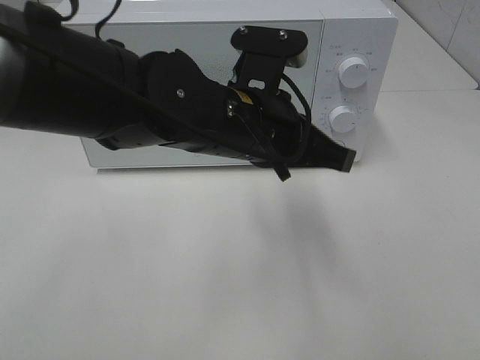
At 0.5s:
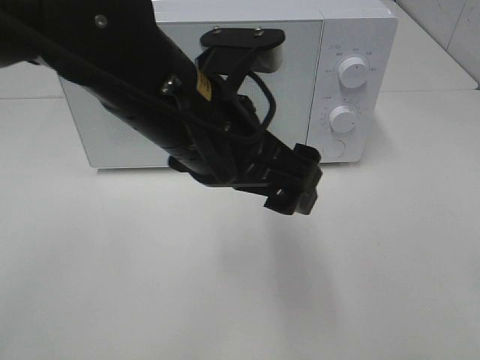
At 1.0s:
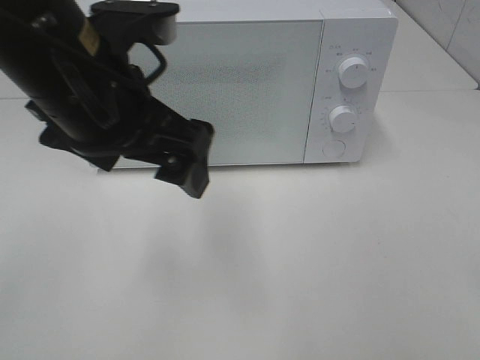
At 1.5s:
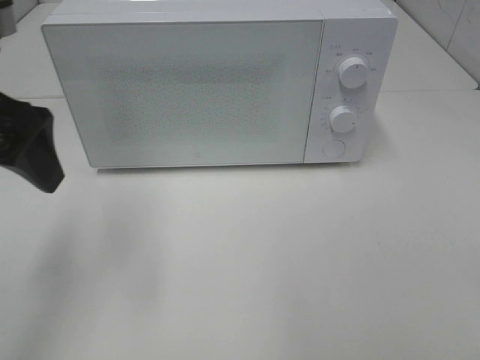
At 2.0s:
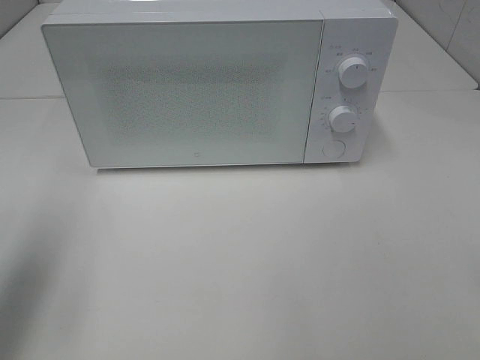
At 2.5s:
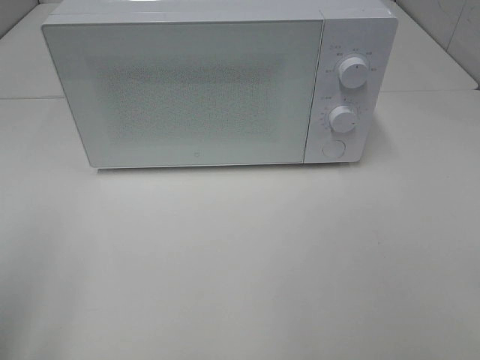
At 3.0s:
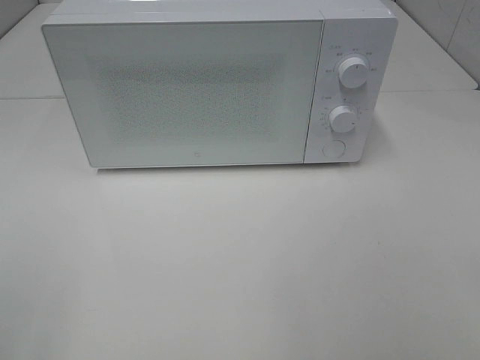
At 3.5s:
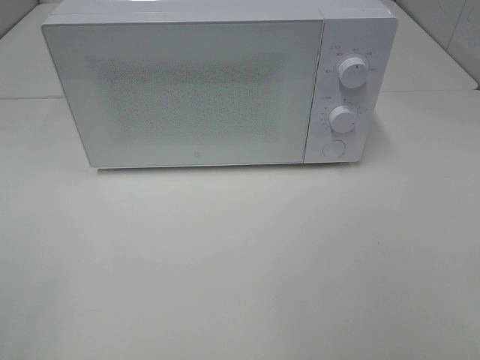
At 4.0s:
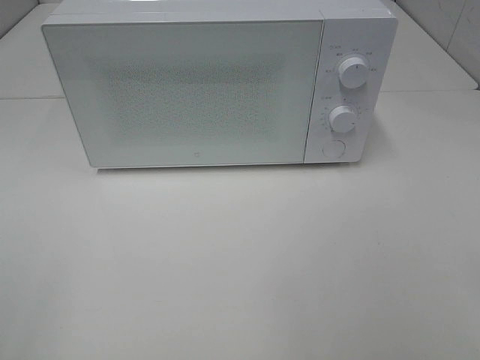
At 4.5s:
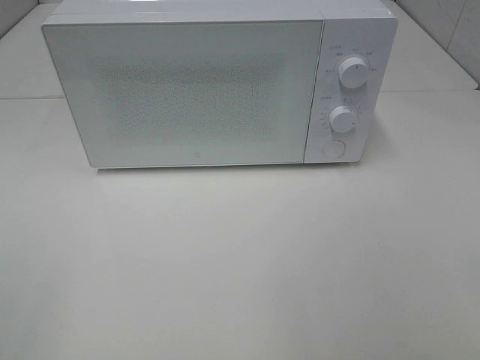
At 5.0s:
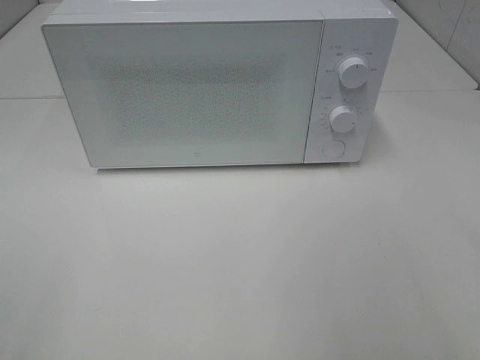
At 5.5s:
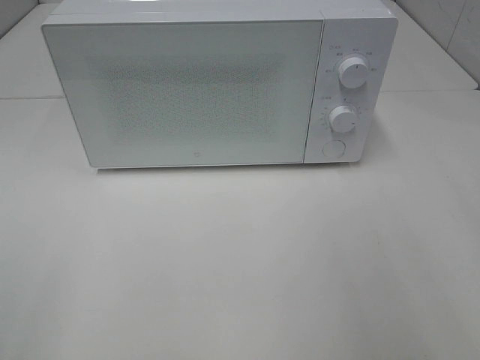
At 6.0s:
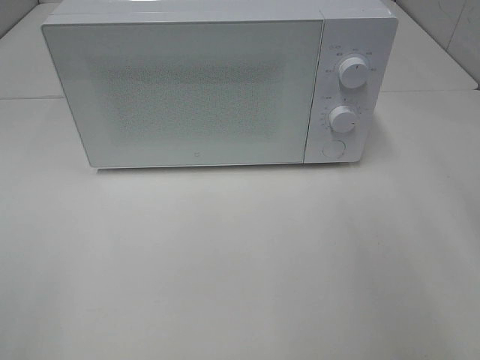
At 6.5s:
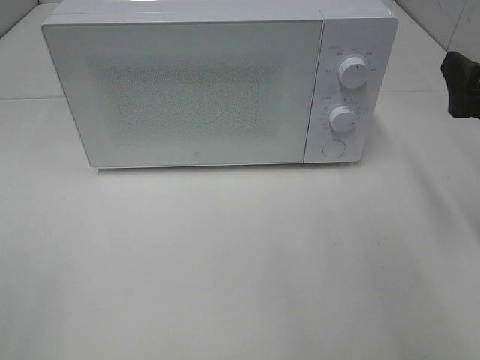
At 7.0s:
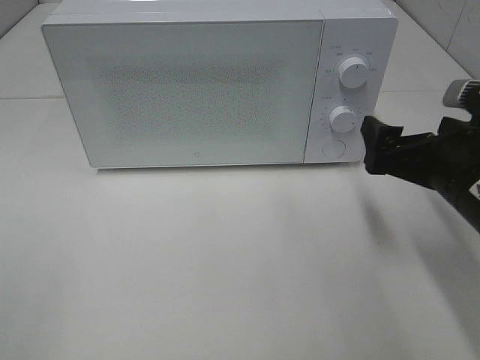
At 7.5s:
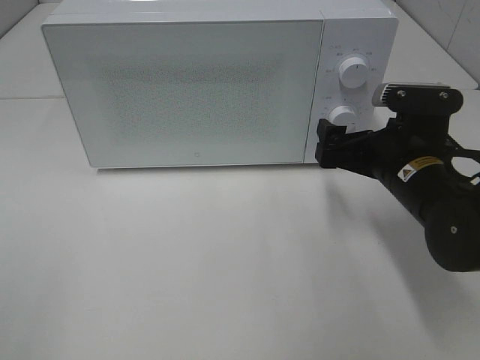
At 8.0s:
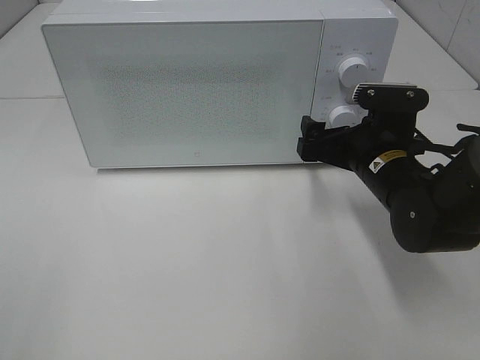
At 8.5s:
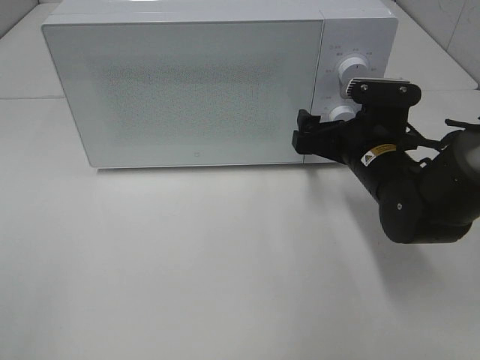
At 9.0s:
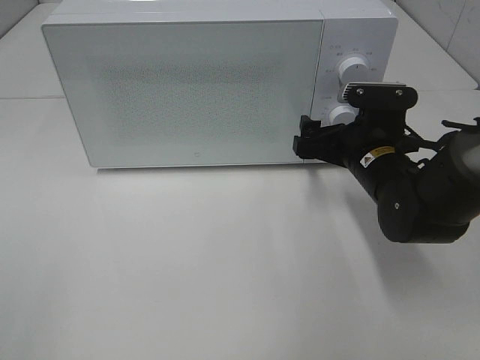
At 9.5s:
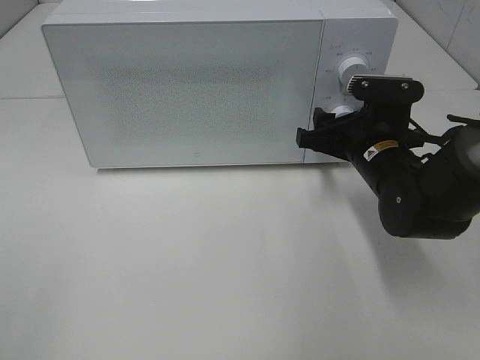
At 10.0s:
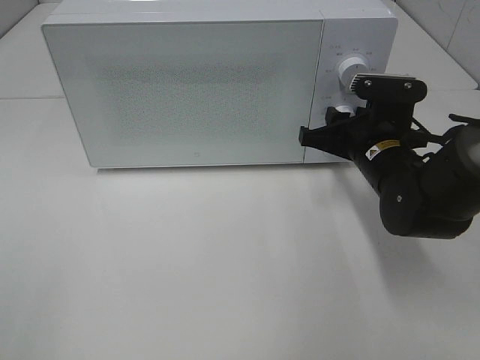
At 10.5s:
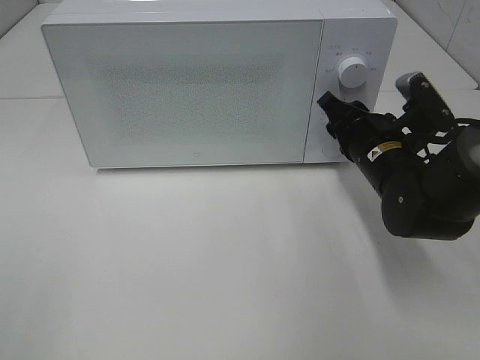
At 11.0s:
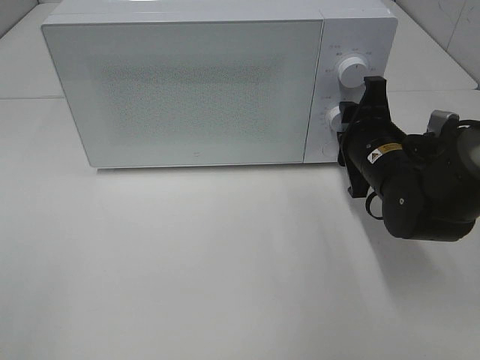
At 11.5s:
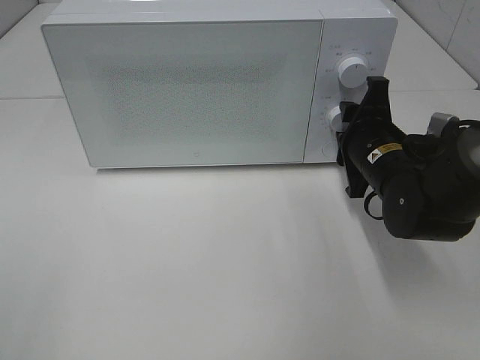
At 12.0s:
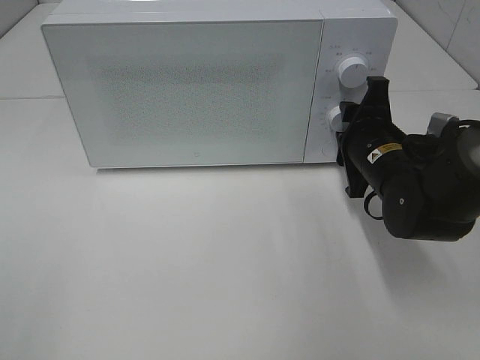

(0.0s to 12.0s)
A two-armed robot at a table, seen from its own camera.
Task of the whole recording: Heat the burger.
0.0s - 2.0s: The left gripper is displaced to the left by roughly 30 cm, and opens up.
2.0s - 4.0s: The left gripper travels backward by about 20 cm.
6.0s - 8.0s: The right gripper goes some 25 cm downward, to the left and forward.
8.0s - 10.0s: The right gripper closes.

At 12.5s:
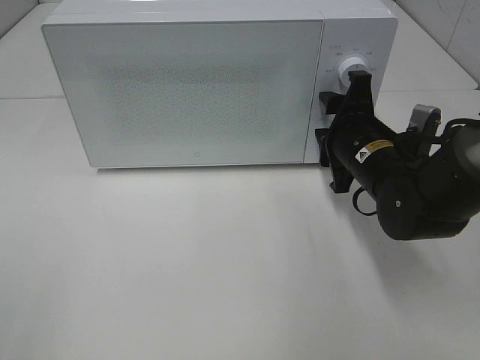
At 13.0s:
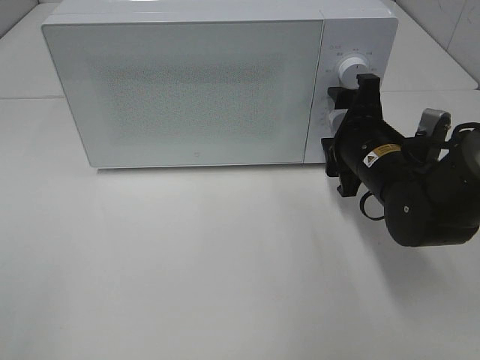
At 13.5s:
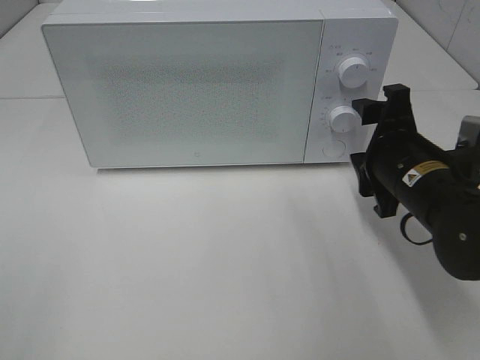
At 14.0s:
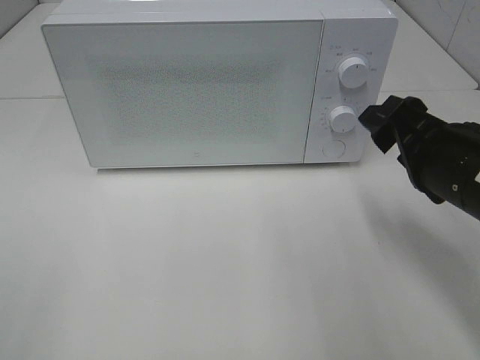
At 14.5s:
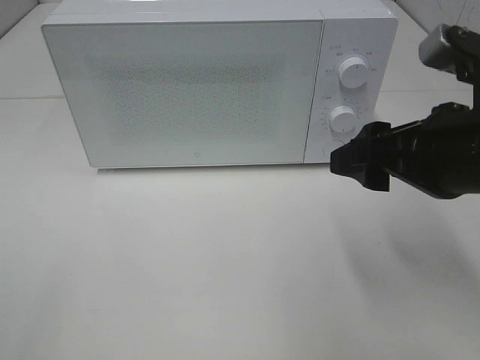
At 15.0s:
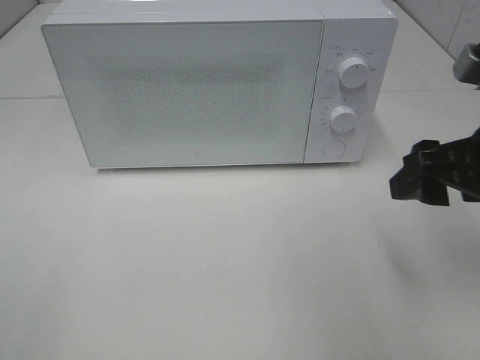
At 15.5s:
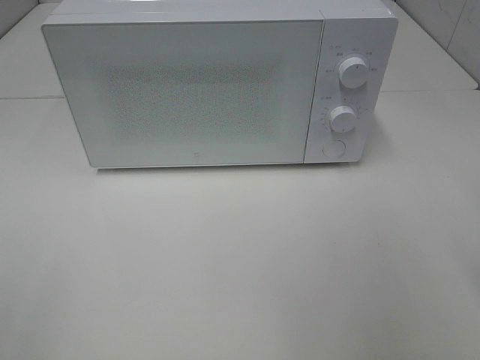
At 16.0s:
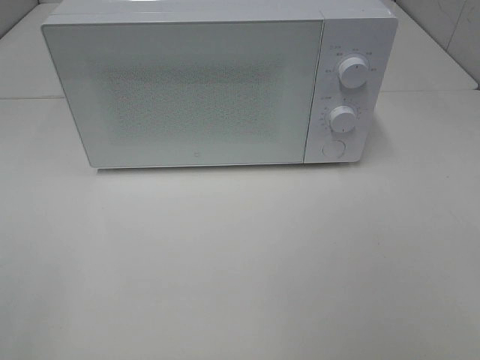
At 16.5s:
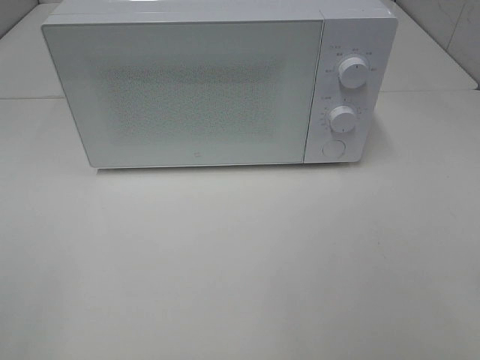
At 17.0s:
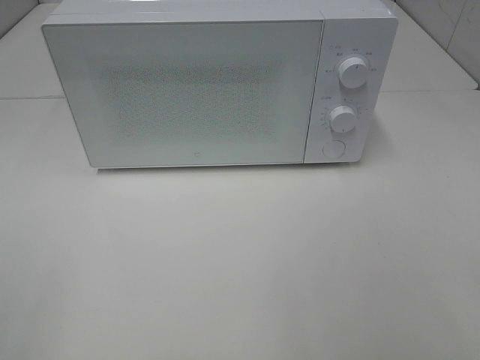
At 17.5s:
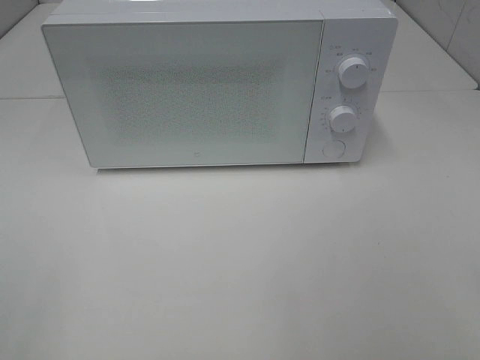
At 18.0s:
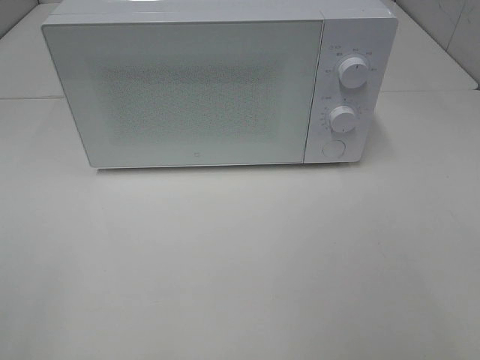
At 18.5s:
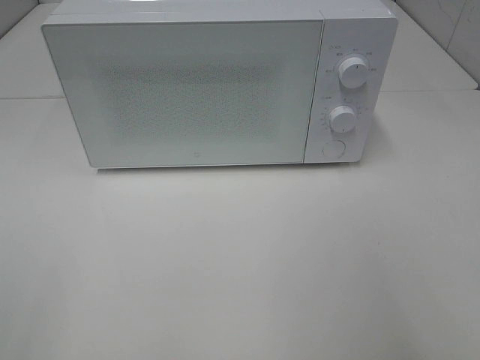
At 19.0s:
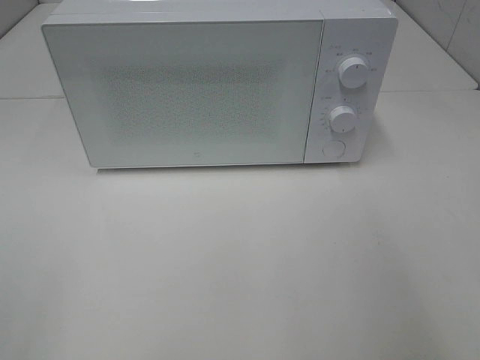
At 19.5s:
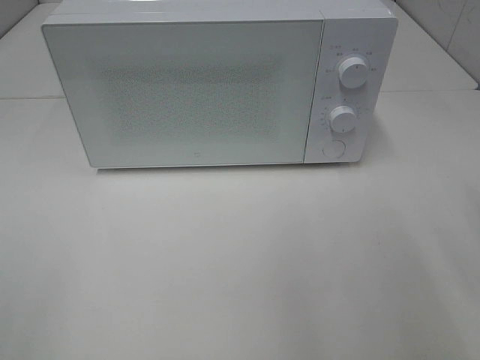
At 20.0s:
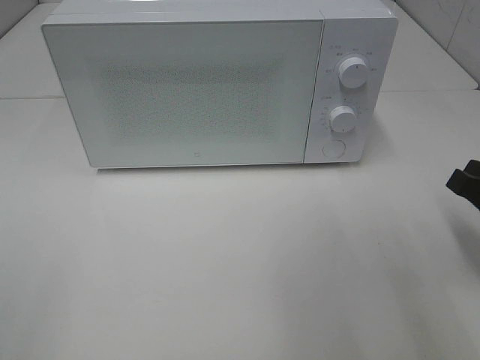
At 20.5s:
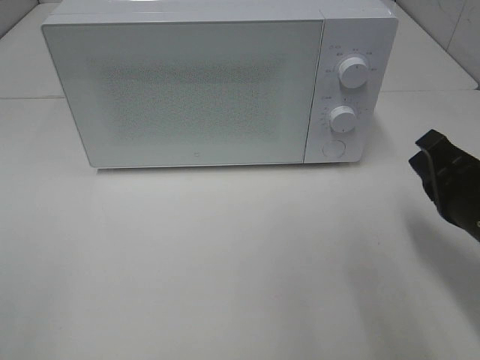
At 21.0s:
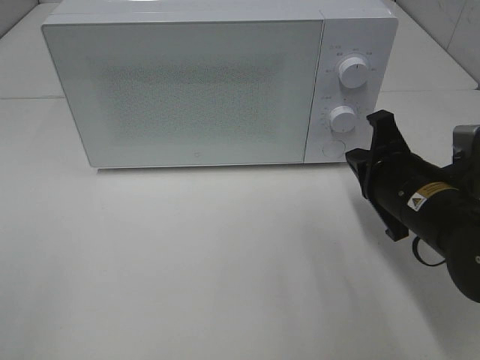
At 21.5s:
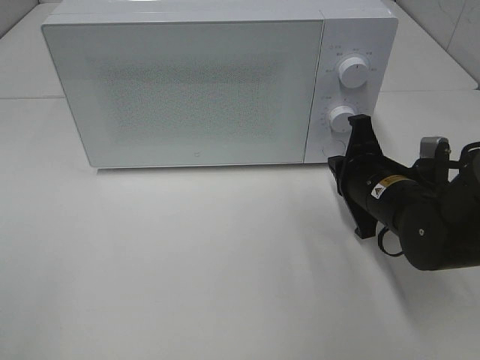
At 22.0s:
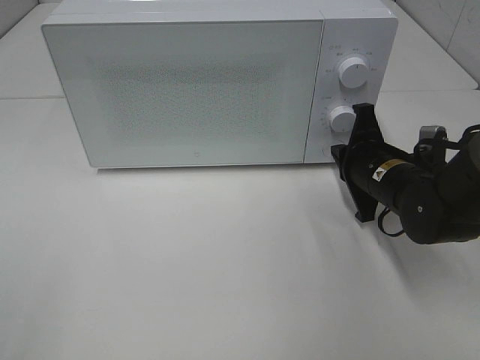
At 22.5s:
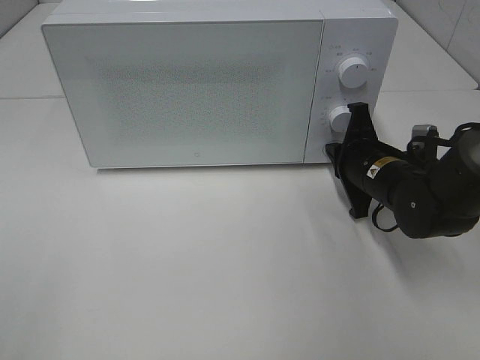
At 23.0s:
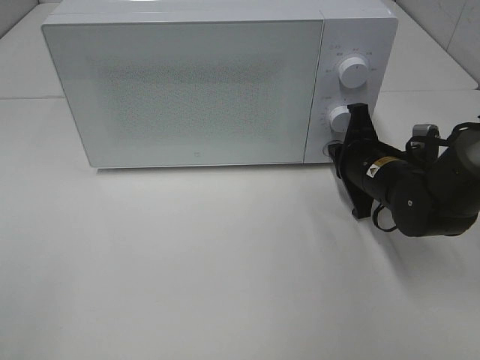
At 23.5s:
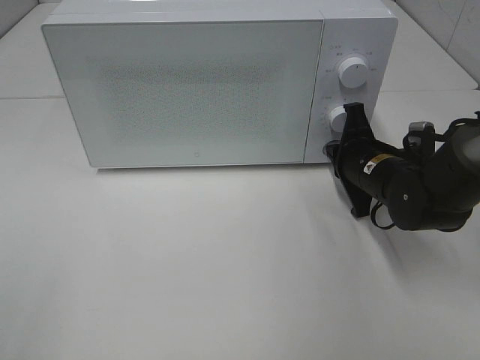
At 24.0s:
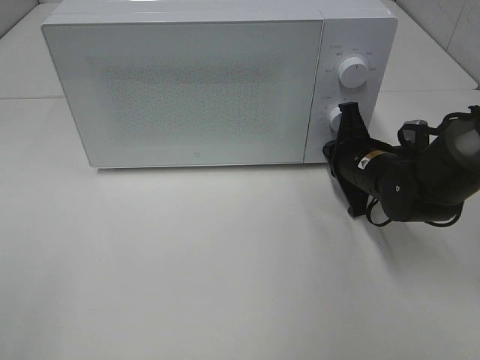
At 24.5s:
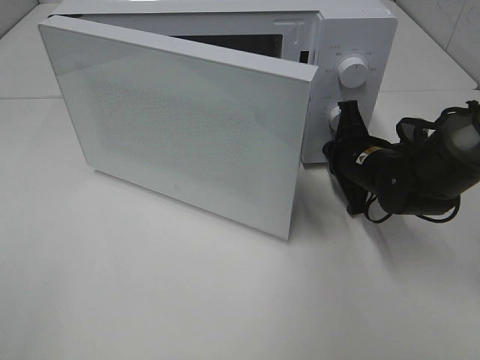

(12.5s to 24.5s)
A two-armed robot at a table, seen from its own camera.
Task of the whole recording: Heat the burger.
12.5s - 14.5s: The right gripper moves backward and upward, roughly 15 cm.
14.5s - 16.5s: The right gripper shifts about 20 cm backward and to the right.
18.5s - 20.5s: The right gripper moves downward and forward, approximately 20 cm.
20.5s - 22.5s: The right gripper moves forward, downward and to the left, about 15 cm.
22.5s - 24.5s: There are only small adjustments of the grippers.

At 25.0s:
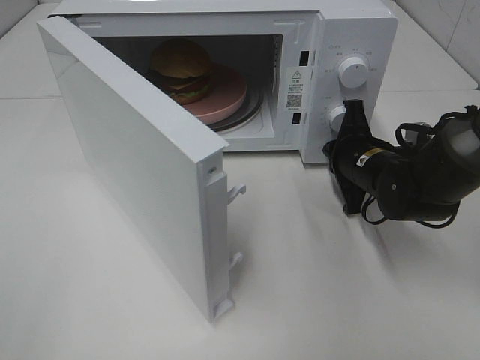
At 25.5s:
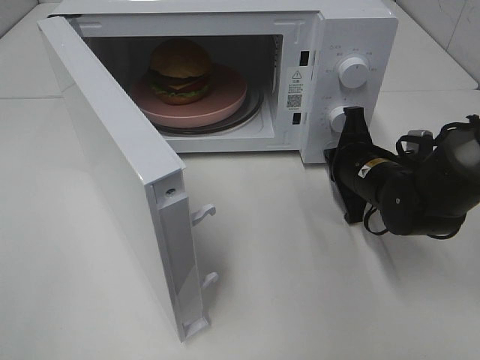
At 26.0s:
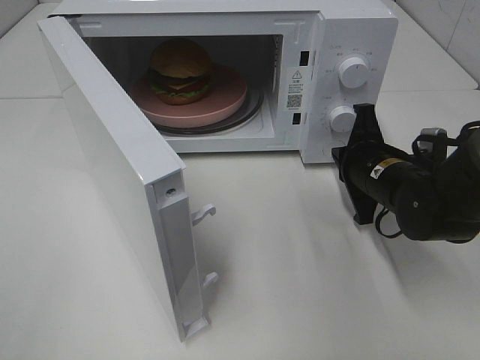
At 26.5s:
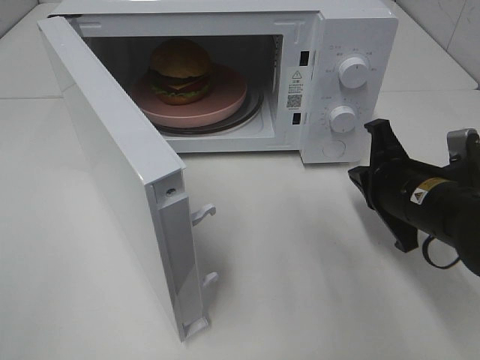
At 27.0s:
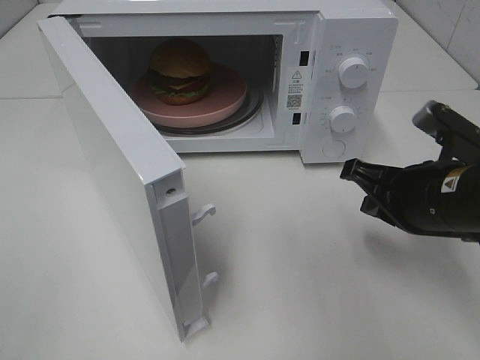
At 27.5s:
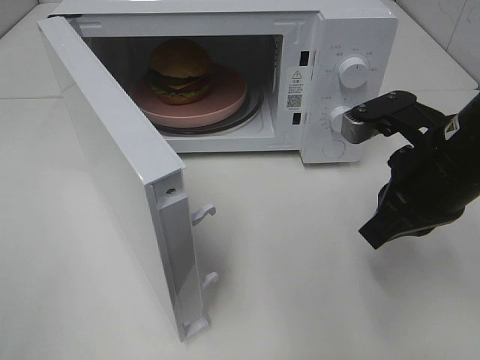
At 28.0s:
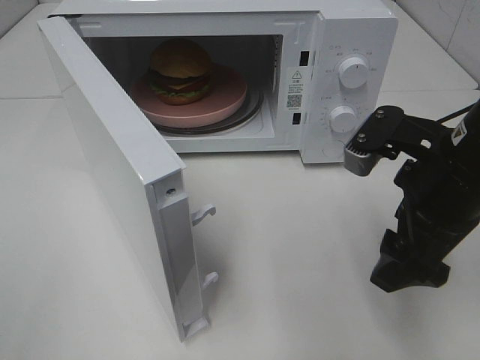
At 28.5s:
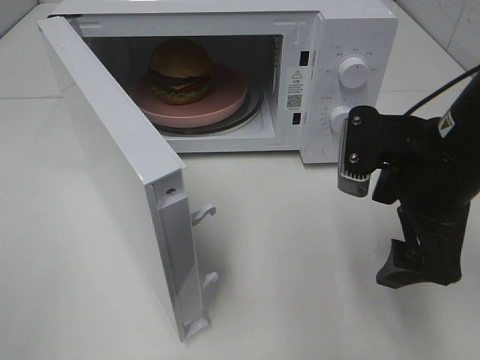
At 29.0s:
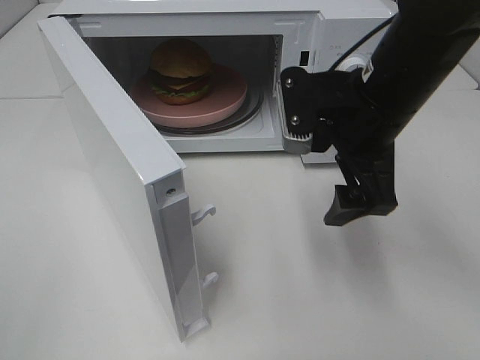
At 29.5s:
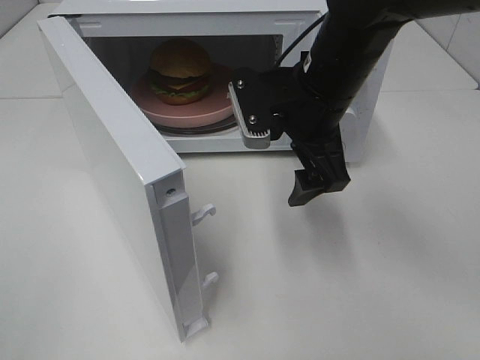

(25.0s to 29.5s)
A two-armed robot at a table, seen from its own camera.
Task of the whole recording: Heat the burger.
25.0s - 27.0s: The right gripper goes some 15 cm backward and upward.
27.0s - 29.5s: The right gripper shifts roughly 15 cm to the left, forward and upward, and opens up.
